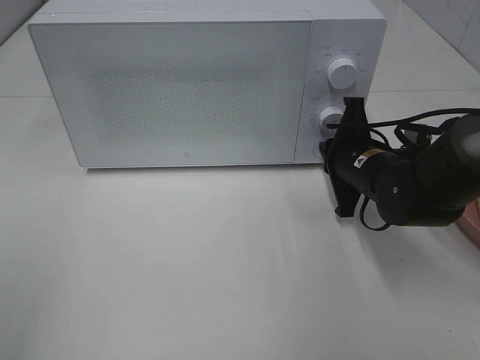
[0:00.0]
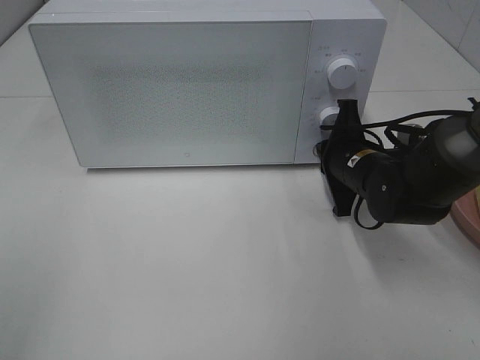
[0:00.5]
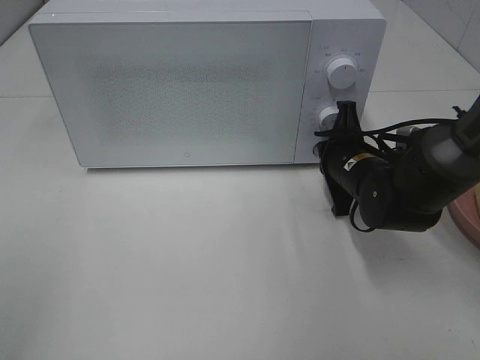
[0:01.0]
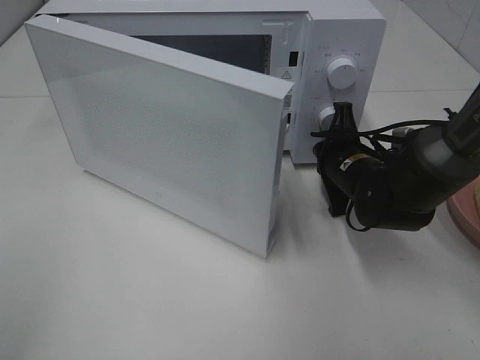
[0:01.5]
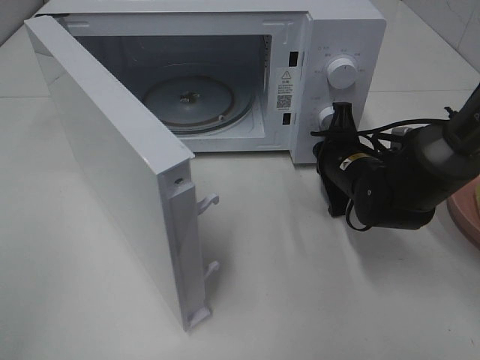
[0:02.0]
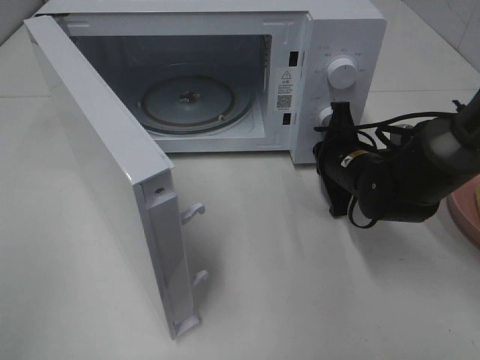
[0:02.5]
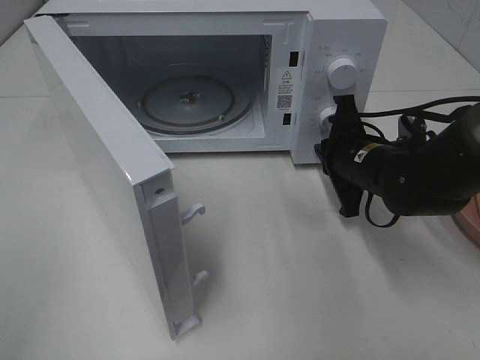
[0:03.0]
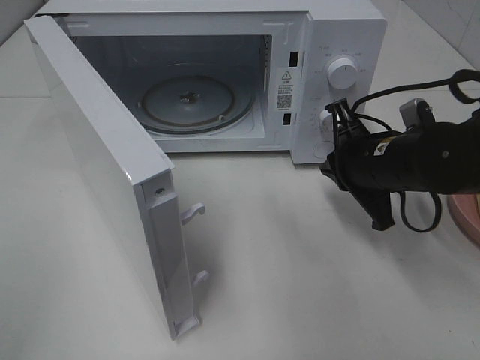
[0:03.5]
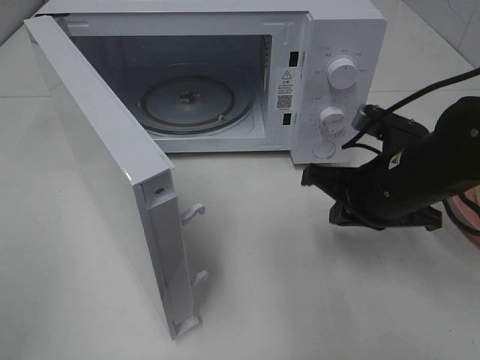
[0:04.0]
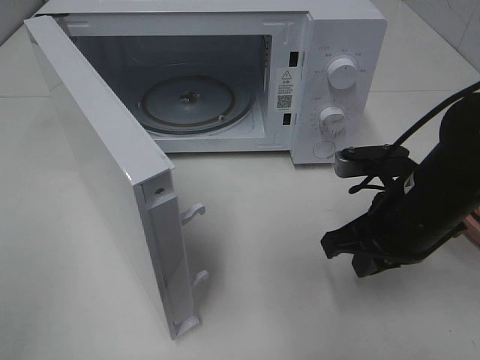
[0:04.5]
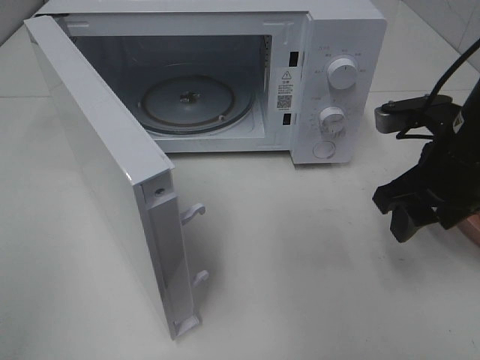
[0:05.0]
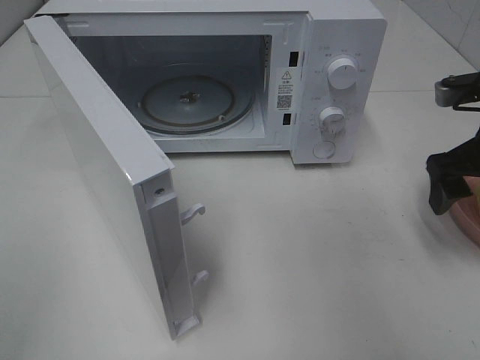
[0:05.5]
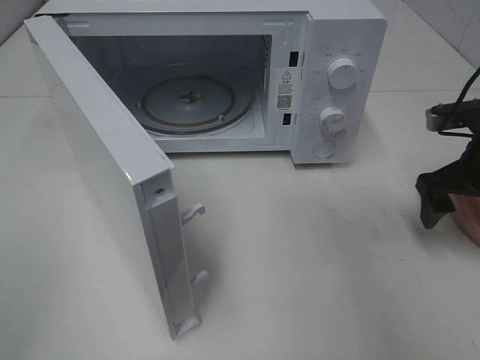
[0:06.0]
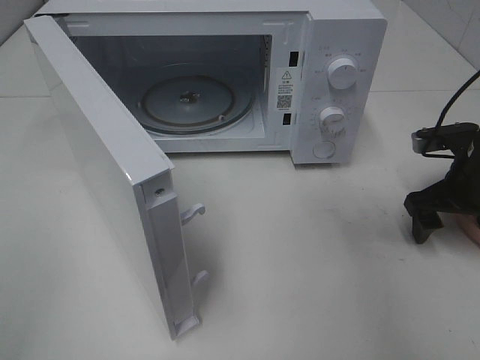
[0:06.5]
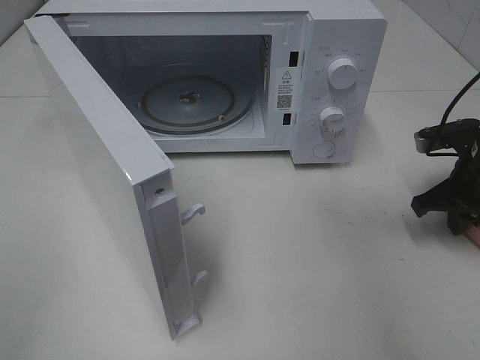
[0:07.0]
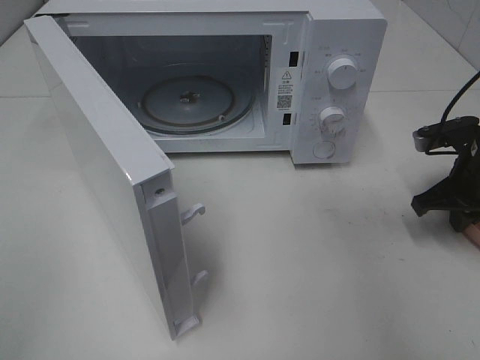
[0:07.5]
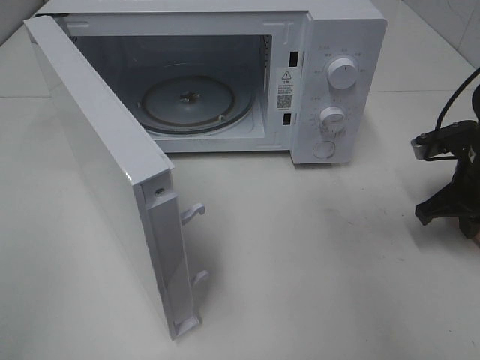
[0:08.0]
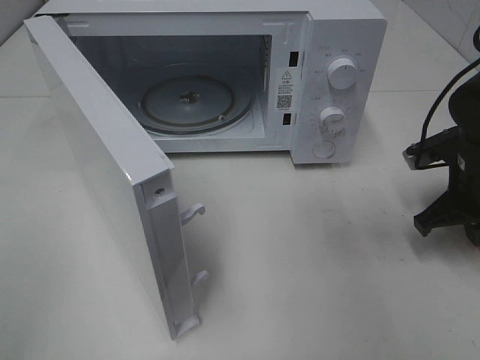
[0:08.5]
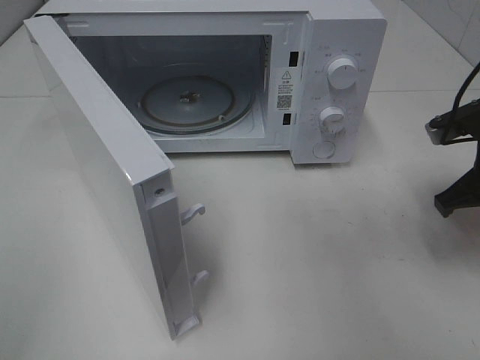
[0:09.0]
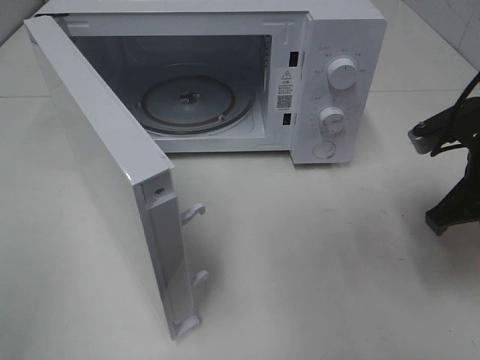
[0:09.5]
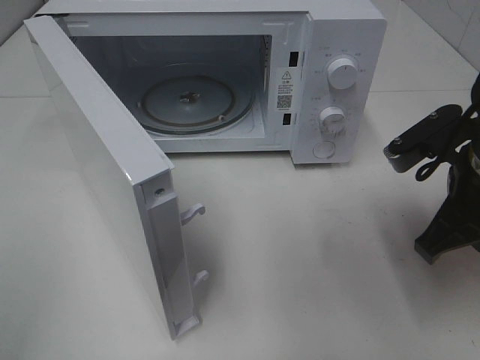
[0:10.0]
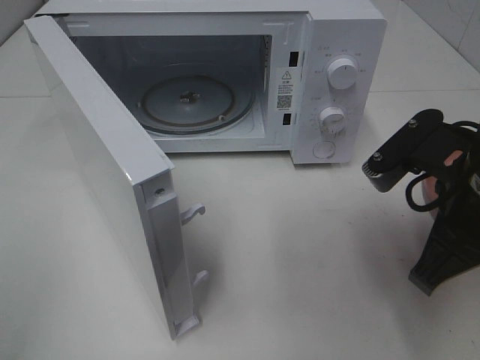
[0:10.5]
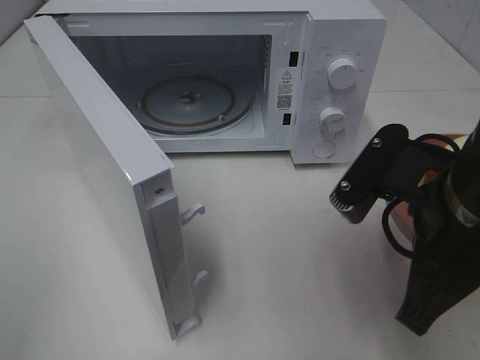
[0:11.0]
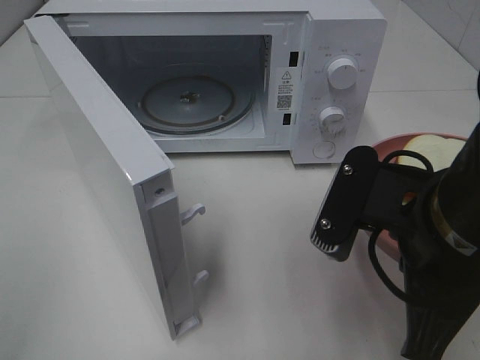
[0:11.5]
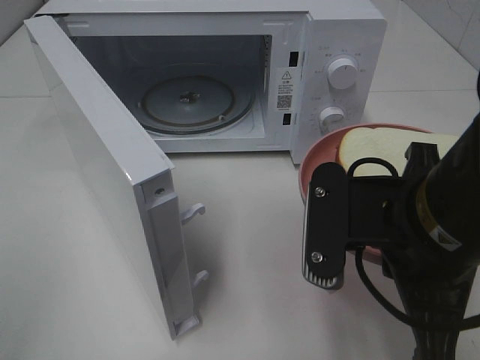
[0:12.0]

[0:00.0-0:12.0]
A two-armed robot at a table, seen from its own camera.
Task of the whole recording: Heat Sandwich.
Step, 0:00.0 to 0:03.0: Right hand: press the switch.
Step, 0:03.5 to 0:07.0: Right hand: grab the plate with the sandwich.
0:02.0 to 0:04.0: The right gripper is displaced backward and upward by roughly 10 cm.
0:04.0 to 0:06.0: The right gripper goes roughly 10 cm to the right, and opens up.
0:06.0 to 0:08.0: The right gripper closes its fingers.
0:08.0 to 0:10.0: The right gripper heads backward, to the left and upward, covering roughly 15 cm.
0:10.0 to 0:12.0: The right gripper goes approximately 10 cm to the left and backward.

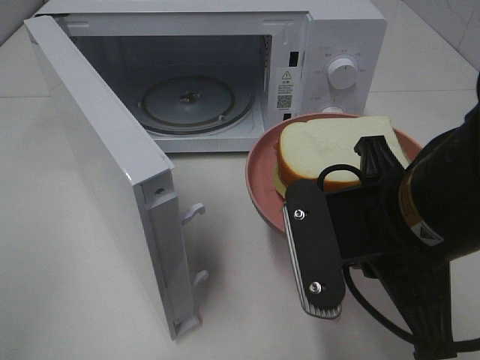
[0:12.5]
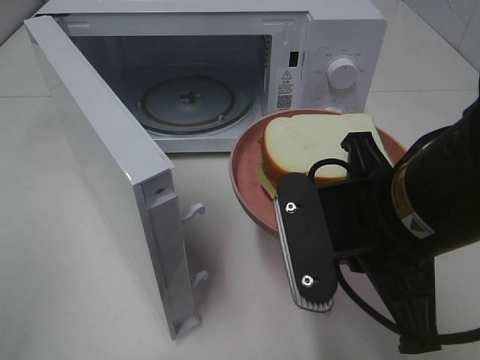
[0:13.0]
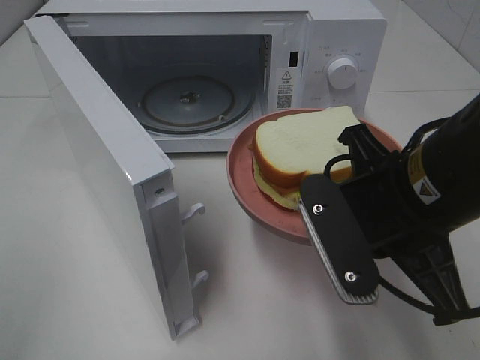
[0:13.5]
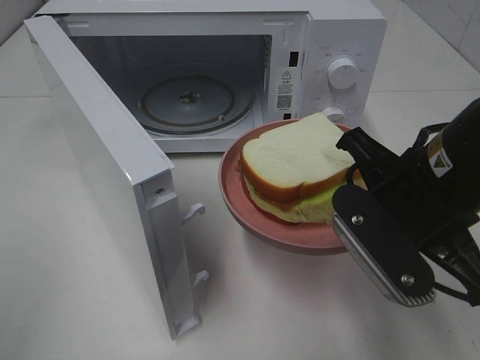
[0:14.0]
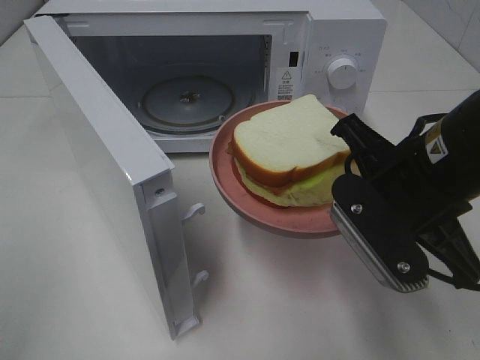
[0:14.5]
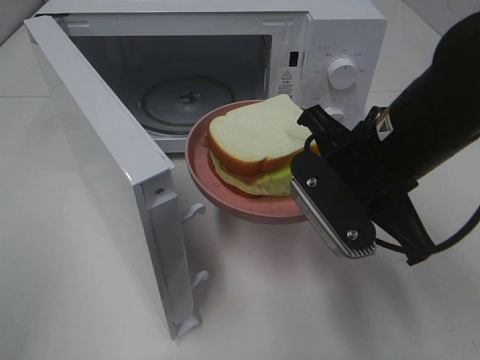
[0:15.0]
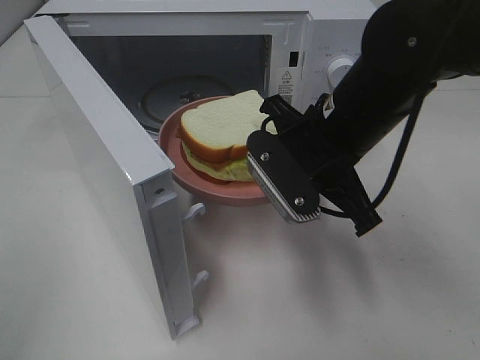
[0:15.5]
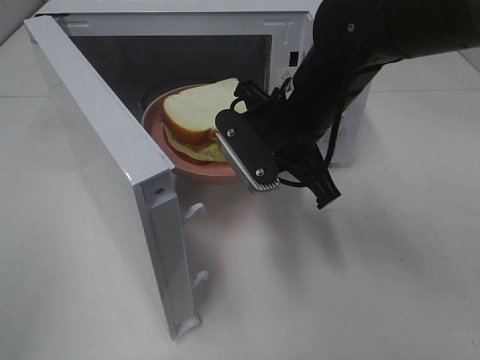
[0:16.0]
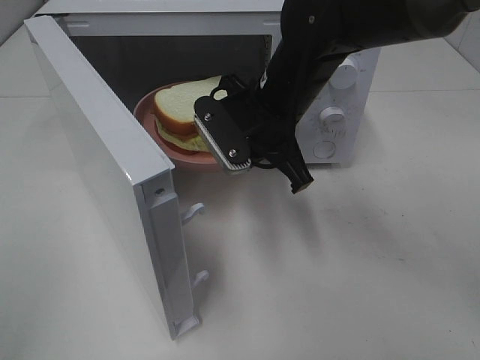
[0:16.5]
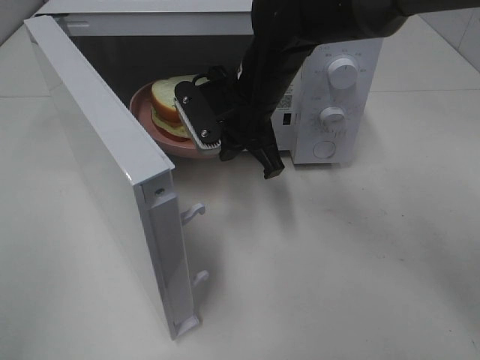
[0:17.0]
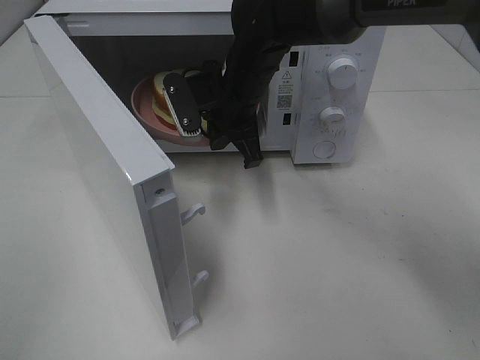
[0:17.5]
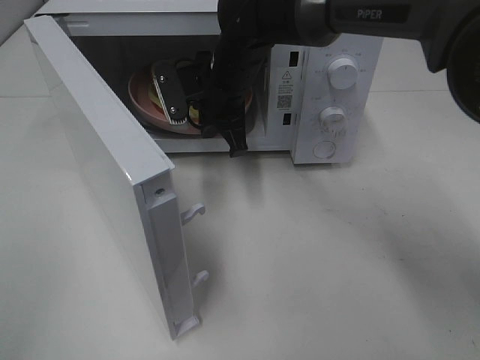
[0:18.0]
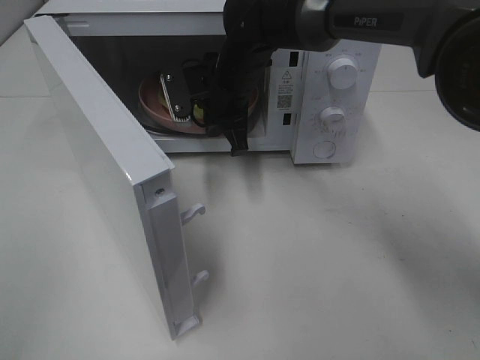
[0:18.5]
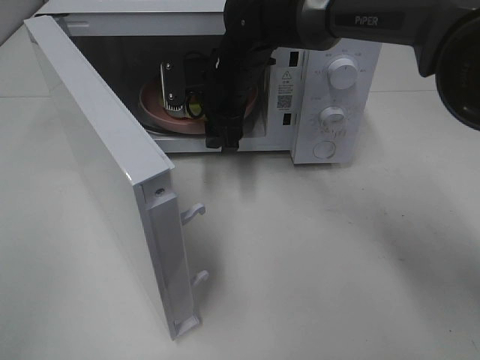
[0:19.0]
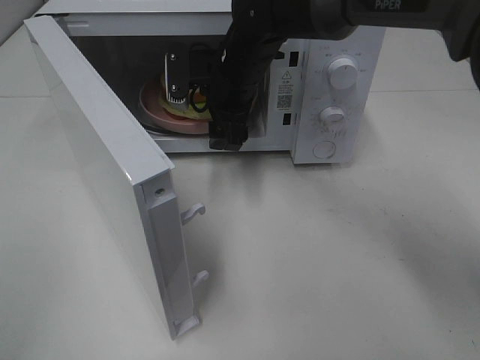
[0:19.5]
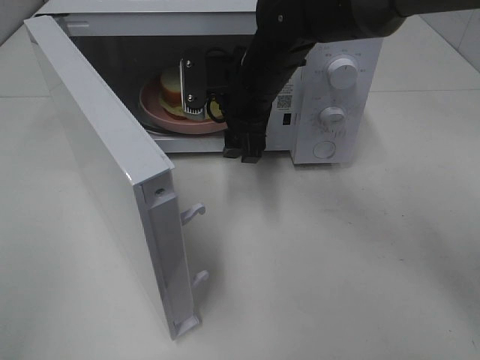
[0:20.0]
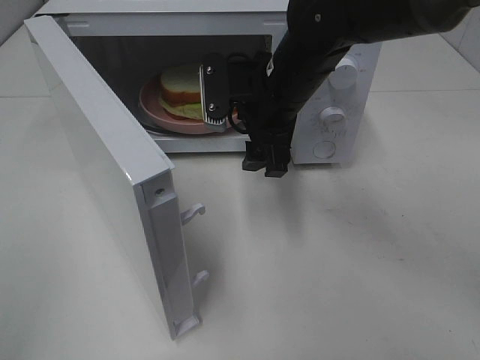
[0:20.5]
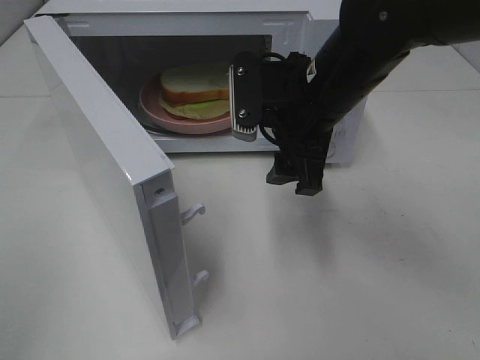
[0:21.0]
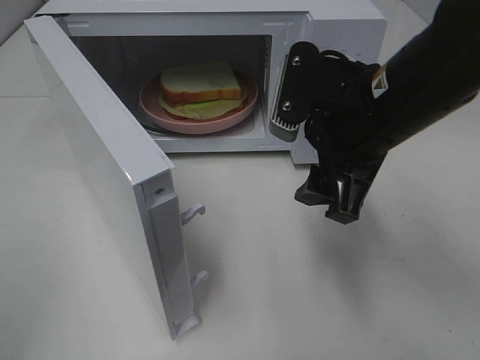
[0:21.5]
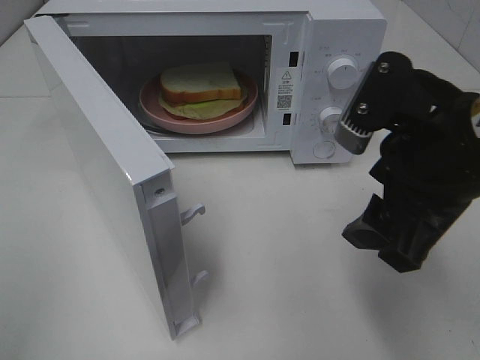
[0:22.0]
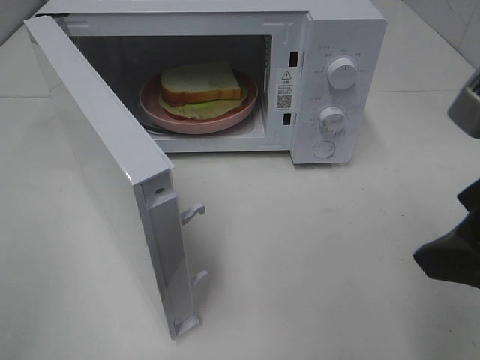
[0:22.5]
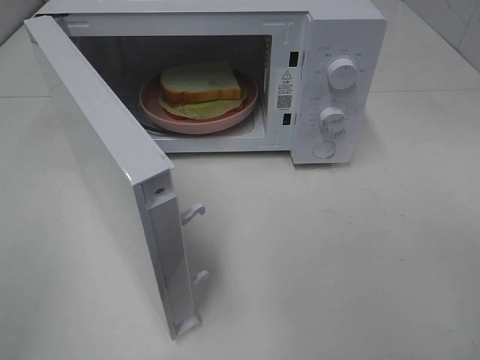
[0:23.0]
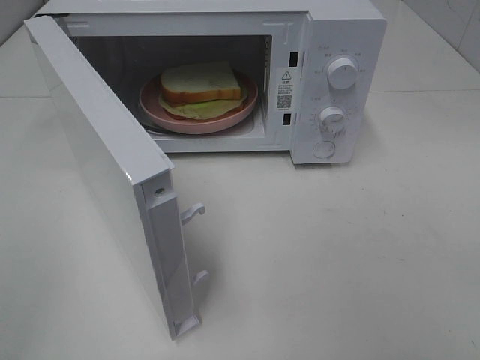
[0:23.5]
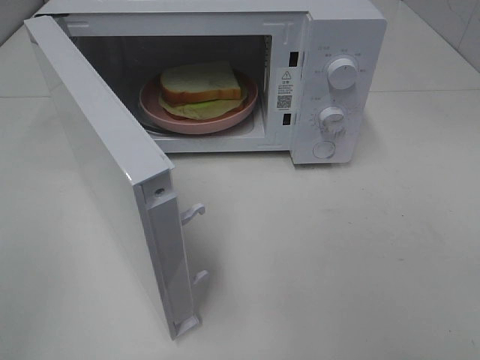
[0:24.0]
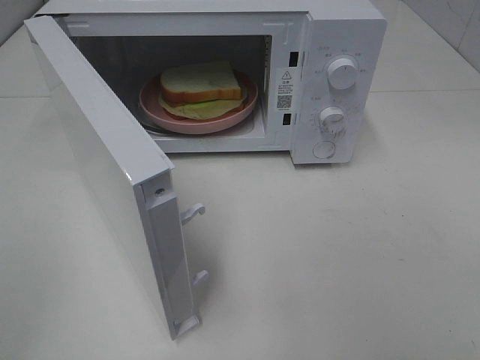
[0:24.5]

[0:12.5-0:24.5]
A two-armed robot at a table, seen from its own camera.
Task of the whole recording: Heat Sandwich.
Step, 0:12.5 to 0:19.0: Right hand: place the plate in the microwave.
0:12.5 to 0:14.5: The right gripper is displaced forward by approximately 5 cm.
0:14.5 to 0:16.5: The right gripper heads forward and to the left, covering about 15 cm.
0:16.5 to 0:18.5: The right gripper heads forward, covering some 10 cm.
0:18.5 to 0:20.5: The right gripper goes about 10 cm backward and to the right, and opens.
0:20.5 to 0:22.5: The right gripper shifts approximately 25 cm backward and to the right.
0:22.5 to 0:24.5: The right gripper travels backward and to the right by about 15 cm.

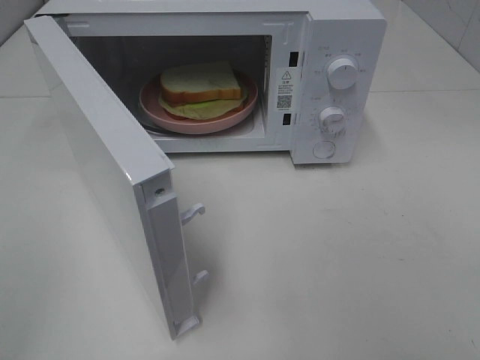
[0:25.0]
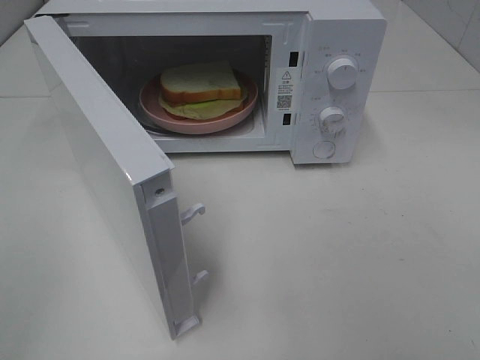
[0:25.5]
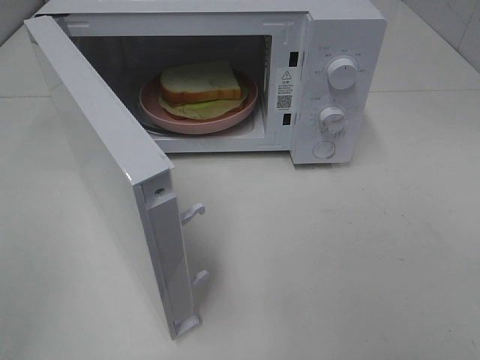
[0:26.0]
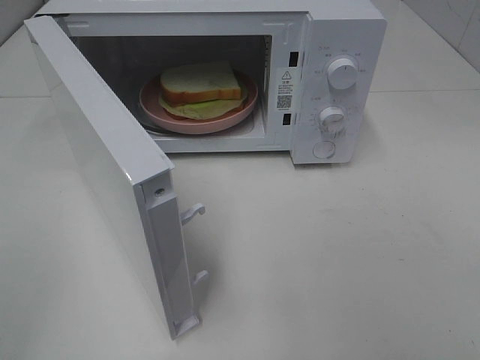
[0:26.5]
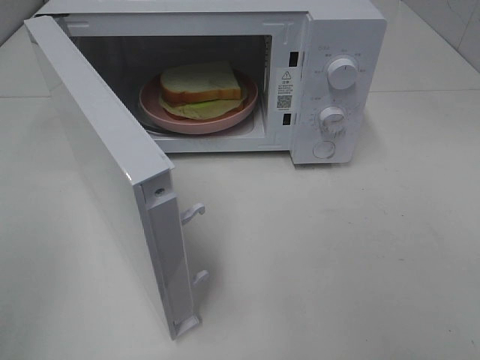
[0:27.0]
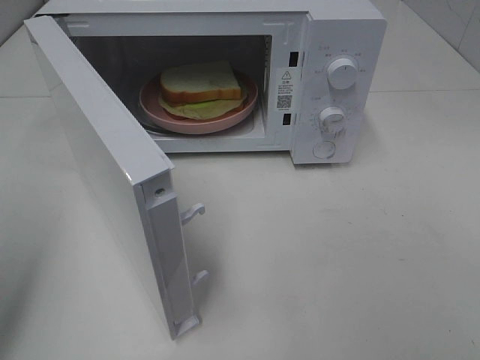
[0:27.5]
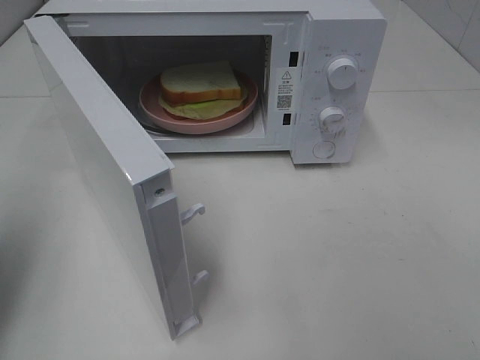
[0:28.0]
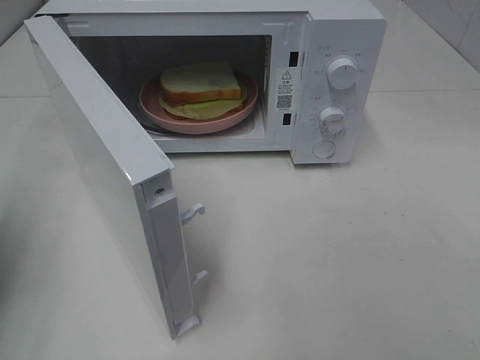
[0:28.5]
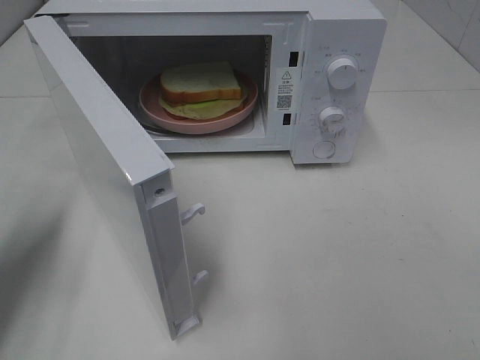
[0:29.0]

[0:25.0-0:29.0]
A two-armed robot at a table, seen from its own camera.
Task of the whole recording: Heat Sandwich.
0:27.0 to 0:29.0: The left gripper heads forward and downward, covering roughly 20 cm, and closes.
